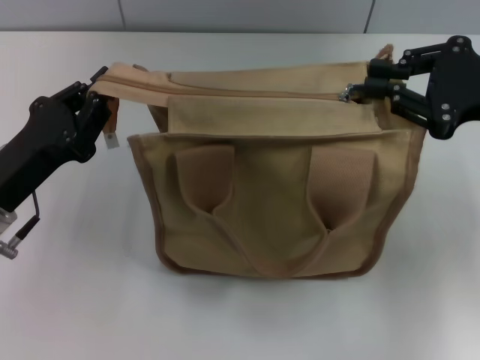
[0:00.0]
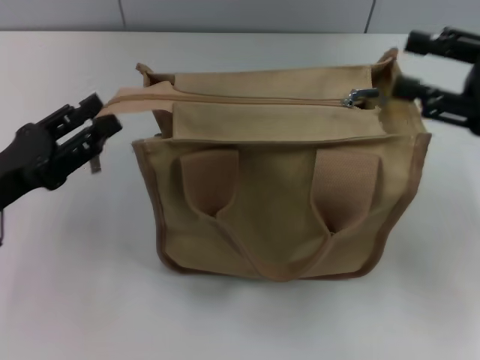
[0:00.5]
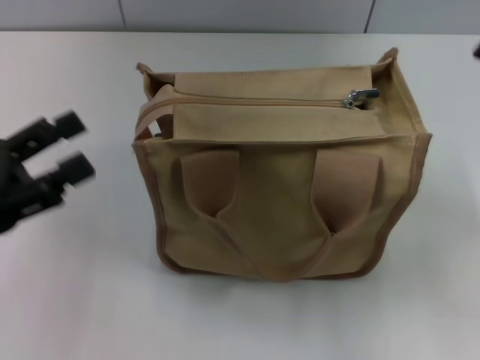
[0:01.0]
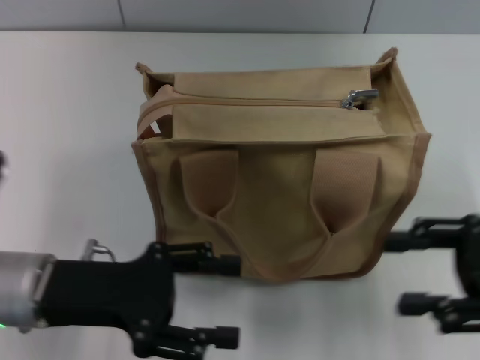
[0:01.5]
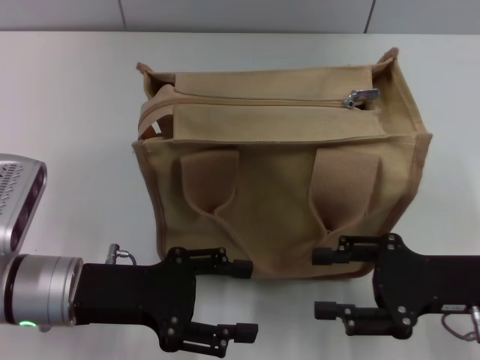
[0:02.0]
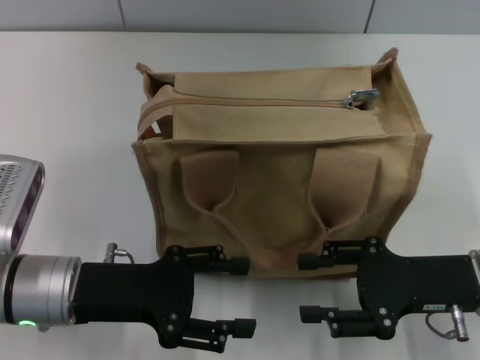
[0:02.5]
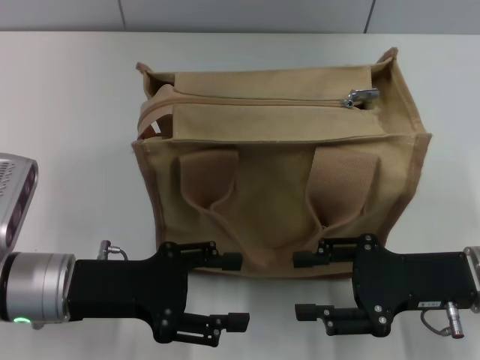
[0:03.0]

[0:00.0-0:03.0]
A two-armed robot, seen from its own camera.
0:00.0 to 0:01.5: The left gripper opens. The right gripper goes about 10 cm backward and downward, and opens.
0:01.5 to 0:03.0: The right gripper shifts about 10 cm to the left and downward.
